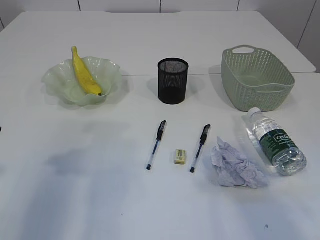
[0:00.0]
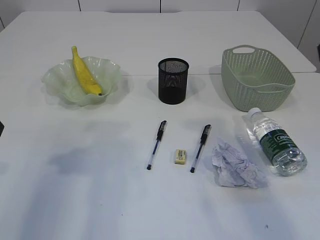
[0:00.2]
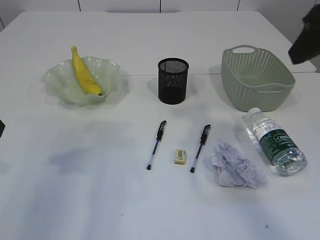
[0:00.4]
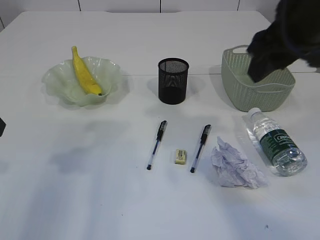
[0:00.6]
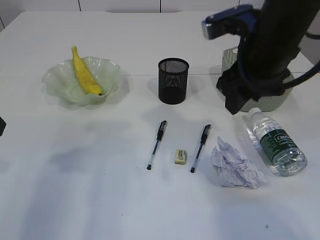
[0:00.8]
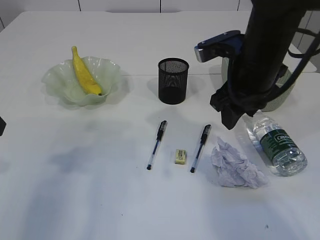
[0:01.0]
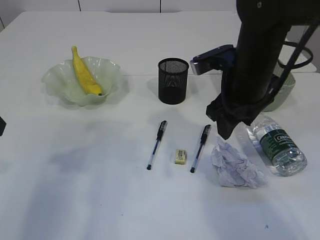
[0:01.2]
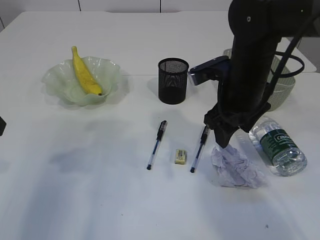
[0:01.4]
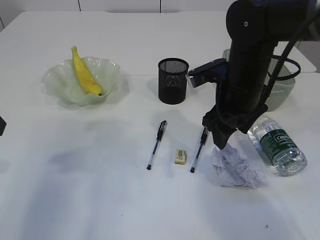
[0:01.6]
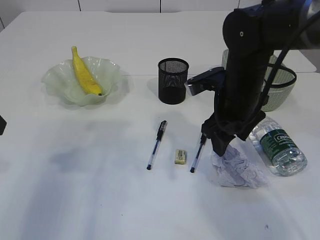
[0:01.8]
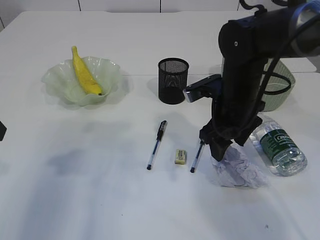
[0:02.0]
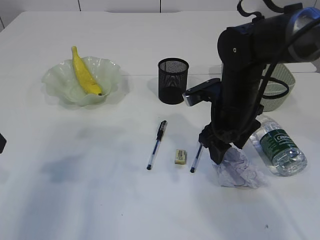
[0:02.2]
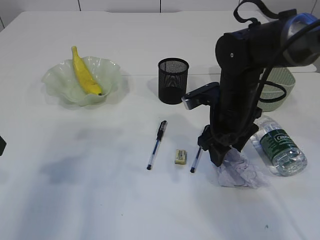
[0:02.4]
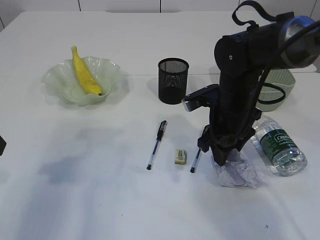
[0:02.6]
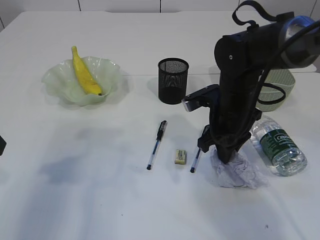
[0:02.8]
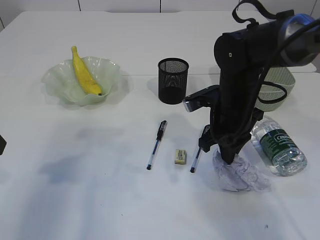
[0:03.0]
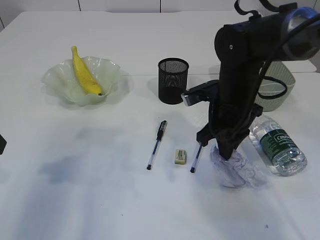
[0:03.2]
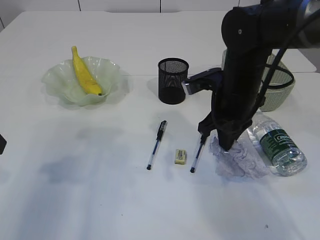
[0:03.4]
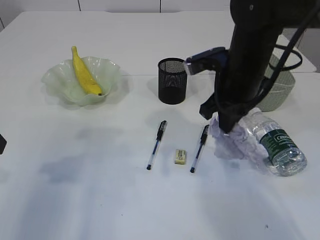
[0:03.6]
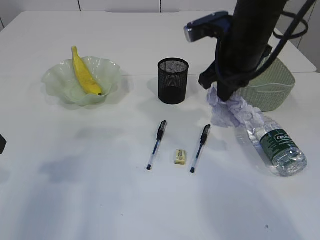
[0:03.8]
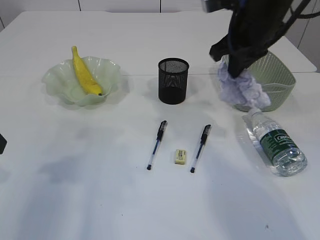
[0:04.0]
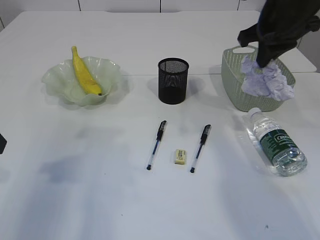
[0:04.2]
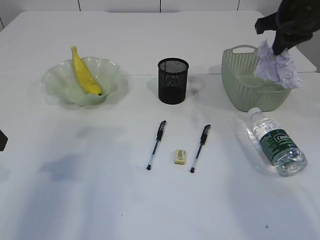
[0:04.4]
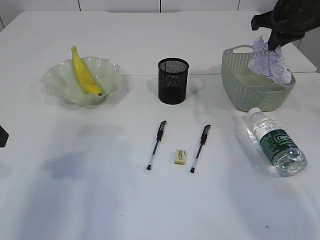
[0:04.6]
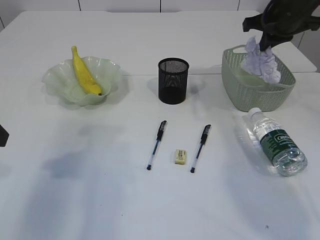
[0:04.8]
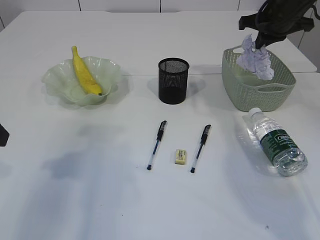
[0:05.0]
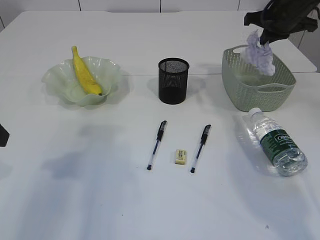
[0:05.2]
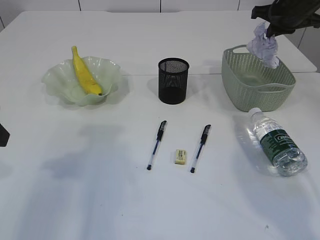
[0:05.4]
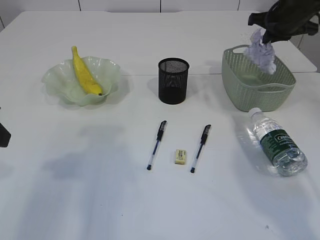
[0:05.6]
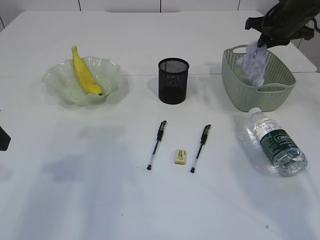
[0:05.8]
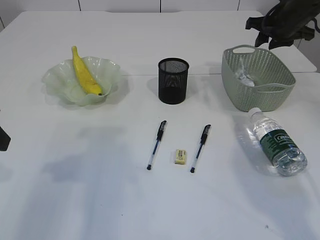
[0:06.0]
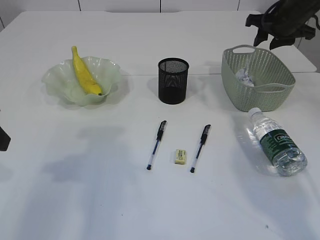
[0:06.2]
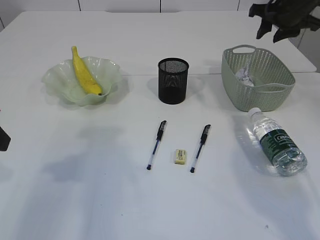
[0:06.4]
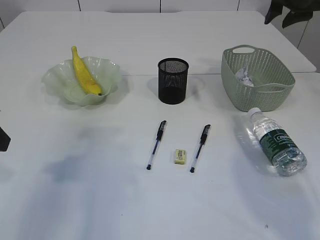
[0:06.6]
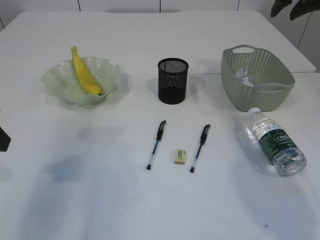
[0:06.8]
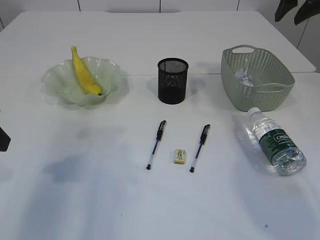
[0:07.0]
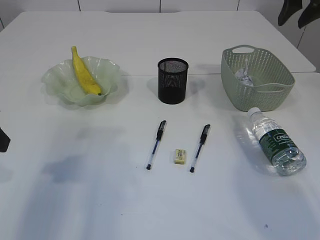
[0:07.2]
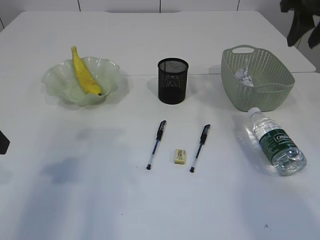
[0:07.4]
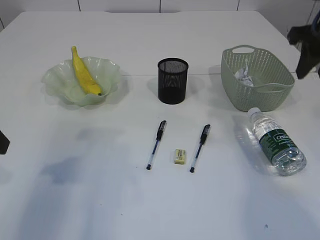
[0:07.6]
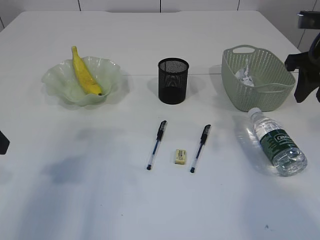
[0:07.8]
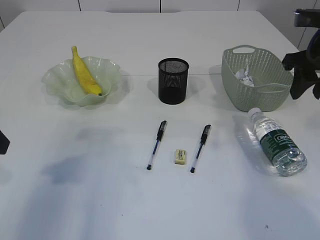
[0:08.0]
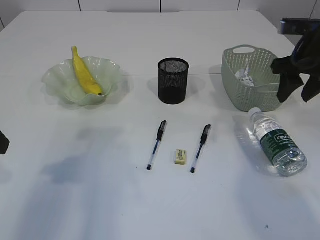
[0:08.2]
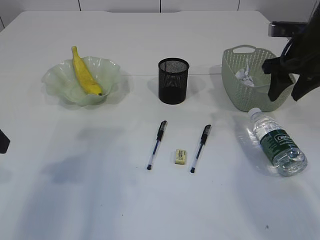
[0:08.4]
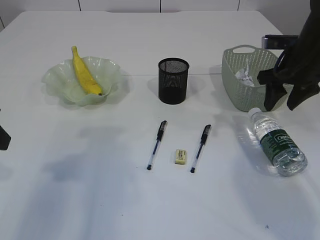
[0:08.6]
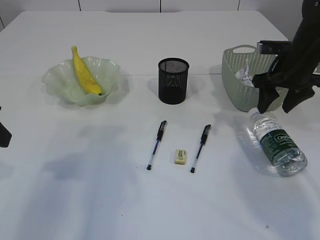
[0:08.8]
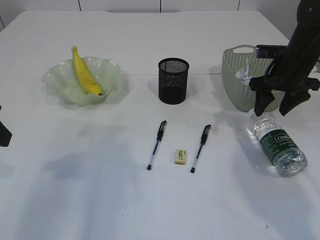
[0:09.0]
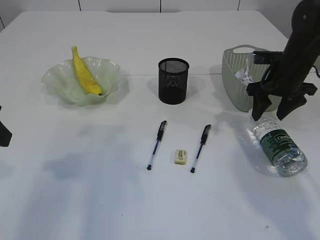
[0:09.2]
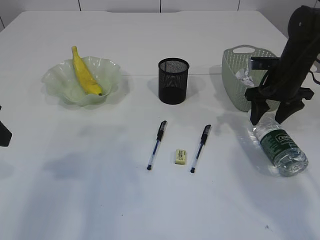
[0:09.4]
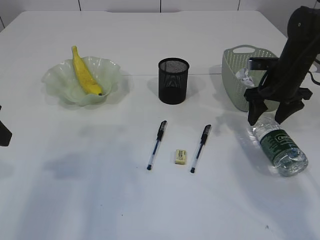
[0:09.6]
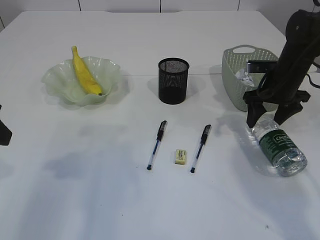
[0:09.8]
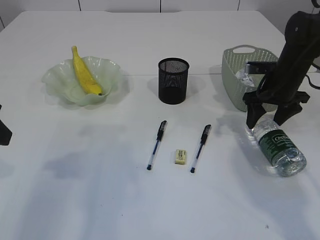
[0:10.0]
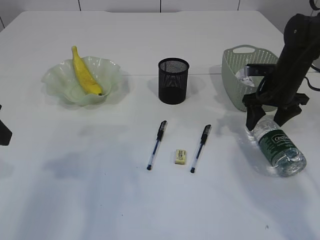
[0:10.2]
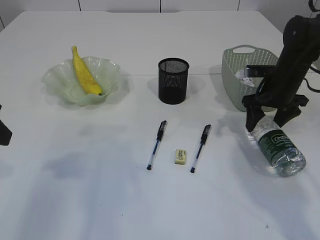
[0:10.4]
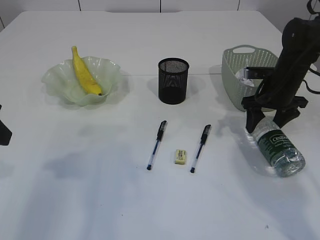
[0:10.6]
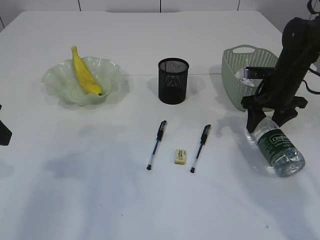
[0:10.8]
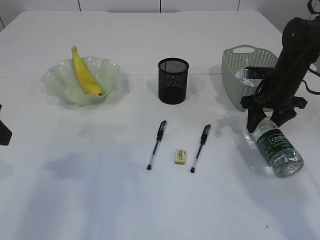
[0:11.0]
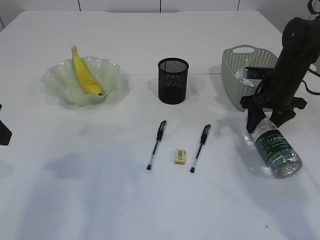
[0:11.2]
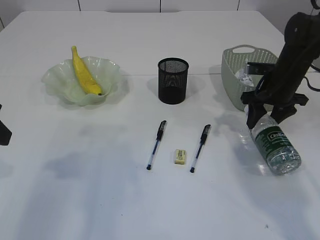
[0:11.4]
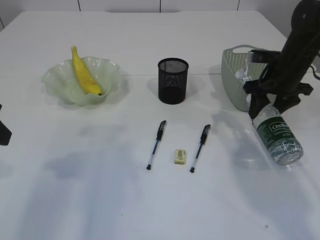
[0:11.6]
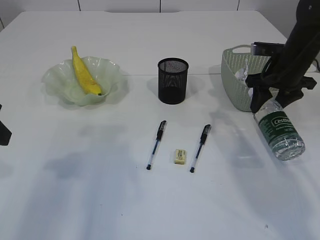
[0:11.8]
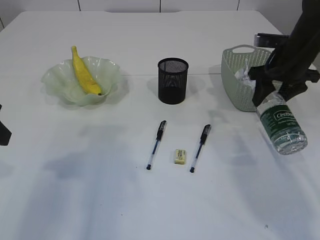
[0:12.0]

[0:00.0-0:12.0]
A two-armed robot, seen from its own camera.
Step, 0:00.0 to 0:03.6: Pick up the waste paper.
Step, 0:03.8 to 0:06.0: Place the waste paper in the basket.
Step, 0:06.2 to 0:11.8: Pick up the bottle with the right arm.
0:00.0 to 0:01.6: The right gripper goes roughly 30 cm forward, downward and to the left.
0:01.6 to 0:03.0: The right gripper moves downward, some 5 cm, and closes its fingers.
0:03.0 to 0:04.4: The right gripper shifts roughly 20 cm upward and to the right.
0:04.4 to 0:06.0: The right gripper goes about 10 cm forward and downward, and opens.
0:06.0 to 0:07.6: The right gripper goes about 15 cm backward and upward.
0:07.6 to 0:09.0: The right gripper moves downward and forward, roughly 15 cm.
0:09.0 to 0:10.4: There are only small adjustments of the grippers.
0:10.4 to 0:12.0: The right gripper is displaced upward by roughly 5 cm.

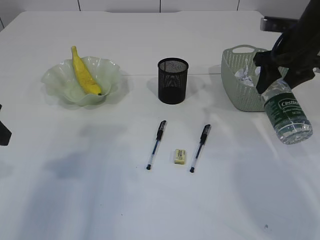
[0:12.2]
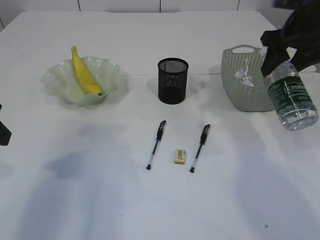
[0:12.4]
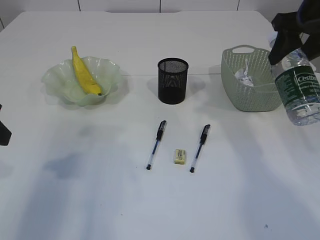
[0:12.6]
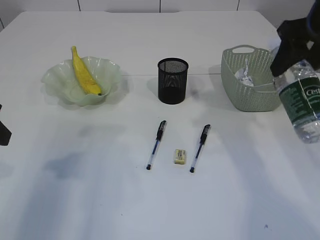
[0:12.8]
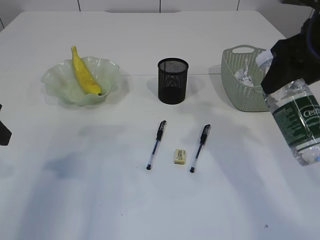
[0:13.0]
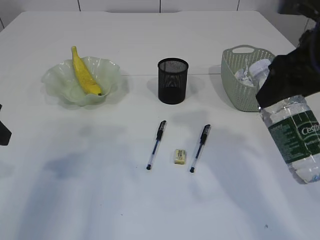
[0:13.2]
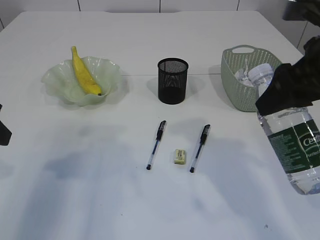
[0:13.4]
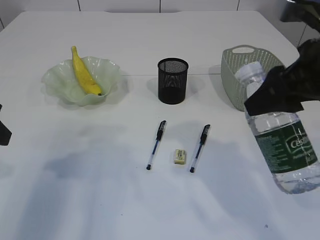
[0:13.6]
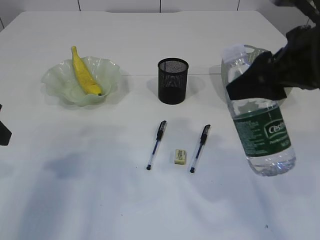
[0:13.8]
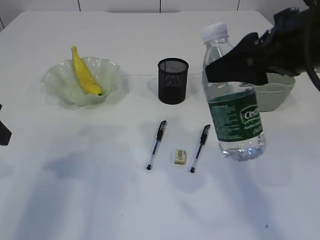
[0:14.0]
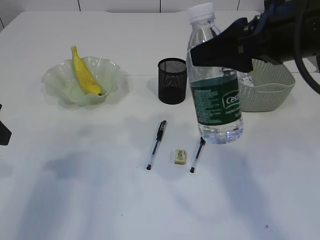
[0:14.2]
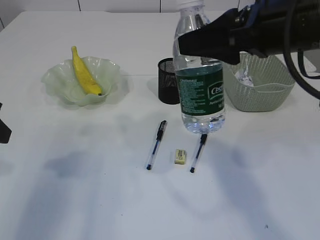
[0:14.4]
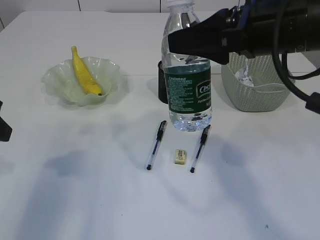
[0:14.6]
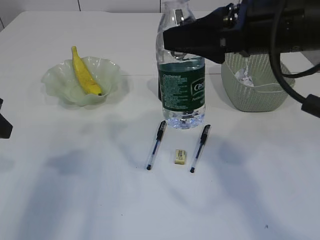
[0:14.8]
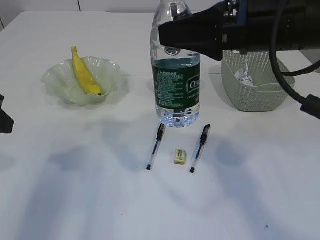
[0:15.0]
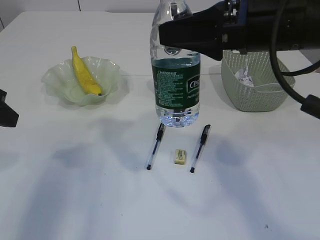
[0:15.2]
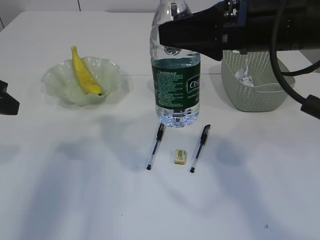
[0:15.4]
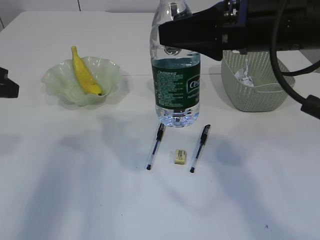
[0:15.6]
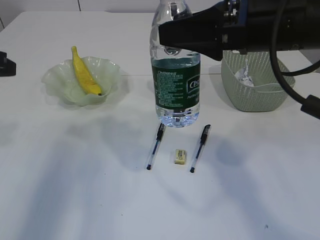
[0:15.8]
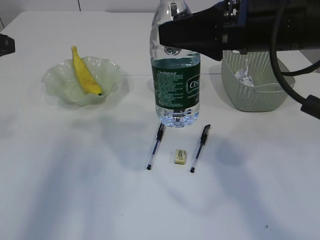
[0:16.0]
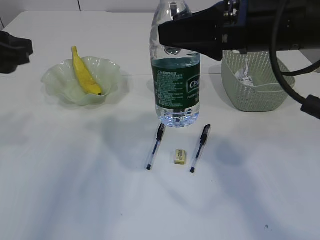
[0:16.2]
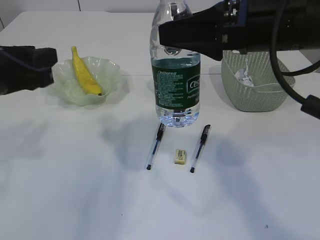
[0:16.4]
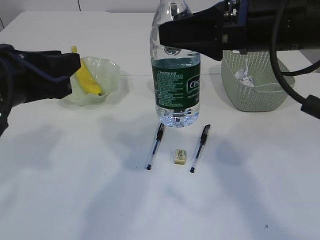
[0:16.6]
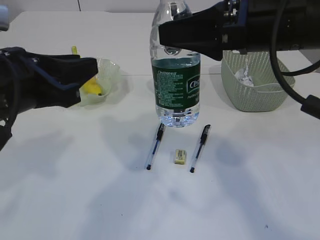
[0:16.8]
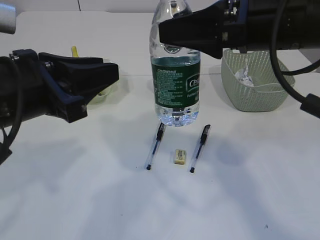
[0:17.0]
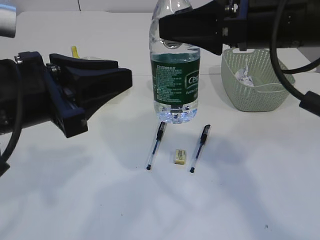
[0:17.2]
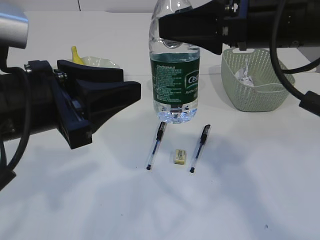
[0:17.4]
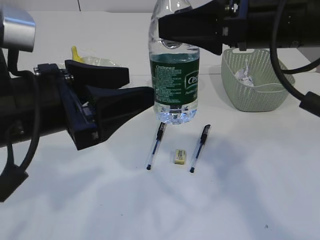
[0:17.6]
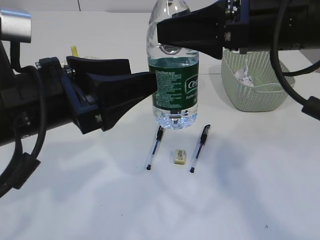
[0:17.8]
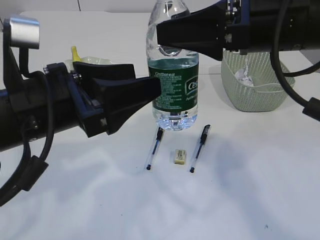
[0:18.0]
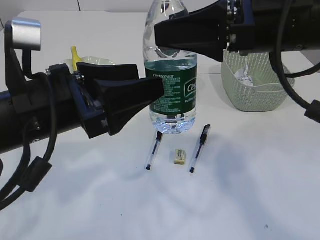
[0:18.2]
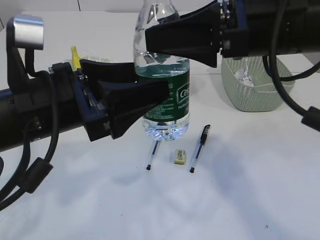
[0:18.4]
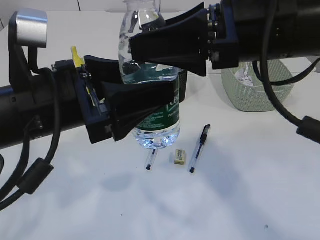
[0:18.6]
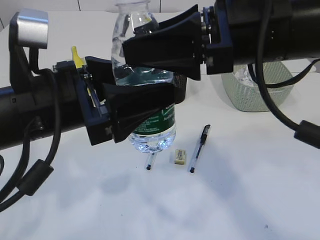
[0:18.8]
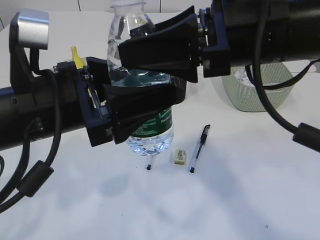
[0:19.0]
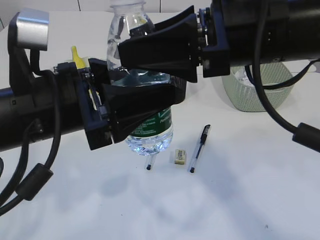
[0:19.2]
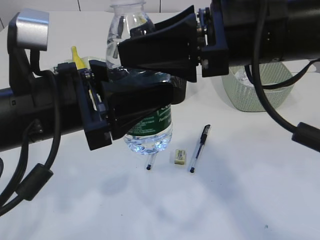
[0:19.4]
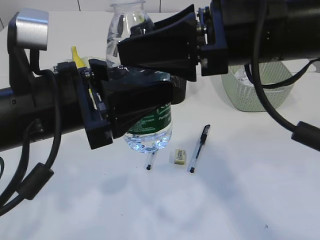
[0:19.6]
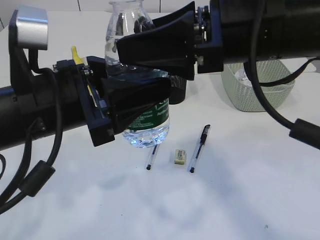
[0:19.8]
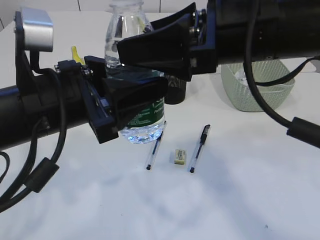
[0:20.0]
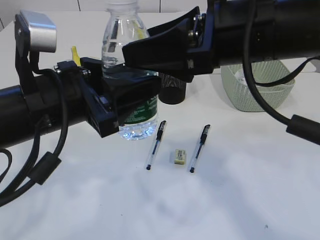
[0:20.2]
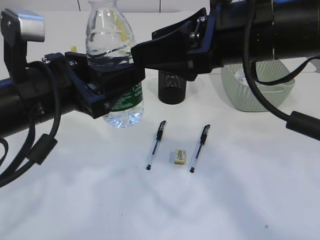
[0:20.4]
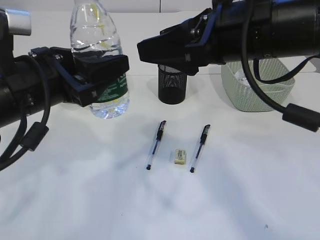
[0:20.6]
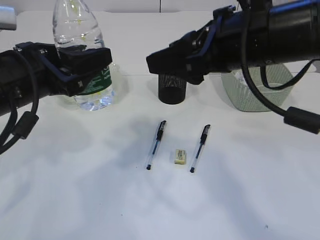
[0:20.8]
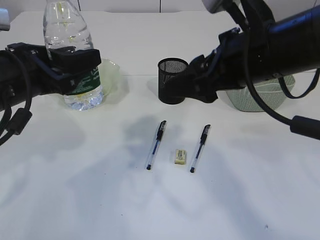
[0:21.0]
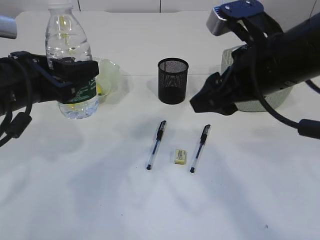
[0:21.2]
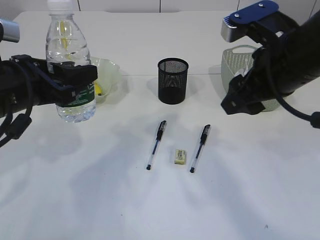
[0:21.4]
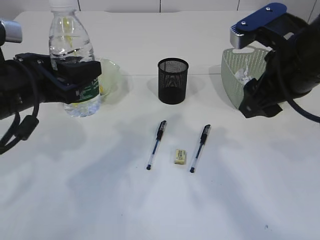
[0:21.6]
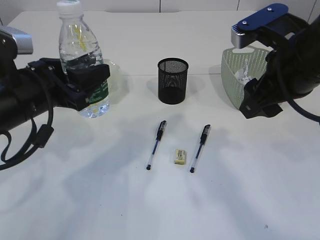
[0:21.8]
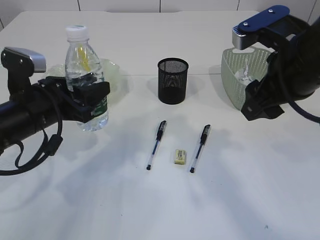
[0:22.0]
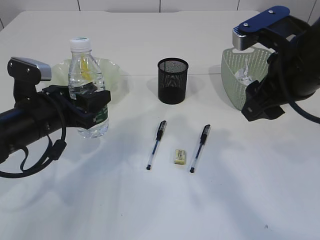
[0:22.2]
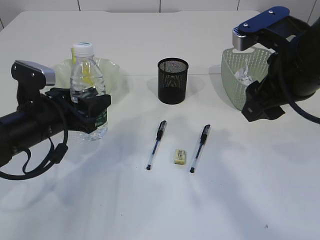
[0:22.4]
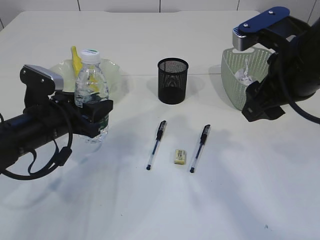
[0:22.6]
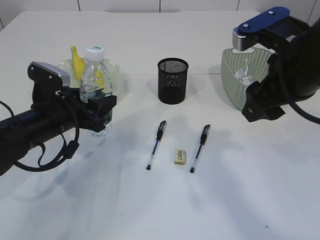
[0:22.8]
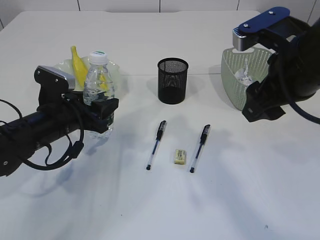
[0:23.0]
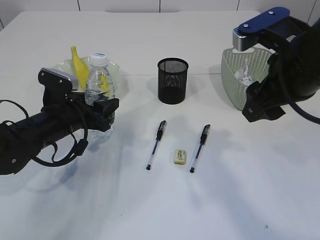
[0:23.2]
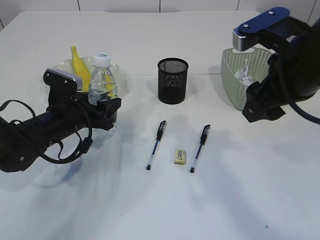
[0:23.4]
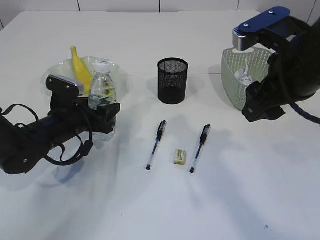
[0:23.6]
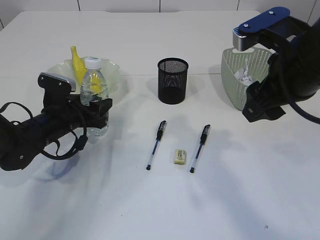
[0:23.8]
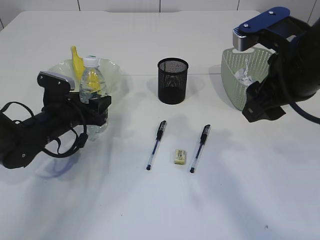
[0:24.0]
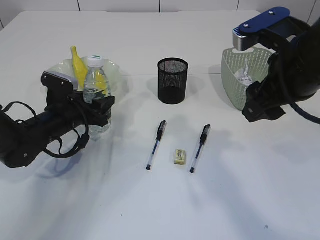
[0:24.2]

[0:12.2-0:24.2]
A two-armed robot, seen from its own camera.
Step, 0:12.2 to 0:20.4: transfer the bottle to the left arm.
0:12.2 to 0:13.8: The right gripper travels backward and to the left by roughly 20 cm.
0:13.8 to 0:15.2: The right gripper changes place by roughly 5 cm.
0:15.2 to 0:16.6: The left gripper heads to the right, covering approximately 10 cm.
0:16.6 to 0:18.2: The left gripper travels to the right by roughly 5 cm, and opens.
0:18.2 to 0:19.8: The left gripper closes up.
0:19.8 to 0:21.2: The right gripper ends up roughly 5 cm from where it was, while the left gripper travels to the left and forward by about 10 cm.
0:21.2 to 0:22.6: The left gripper goes roughly 10 cm downward.
0:22.6 to 0:24.2: The left gripper goes some 10 cm forward and downward.
